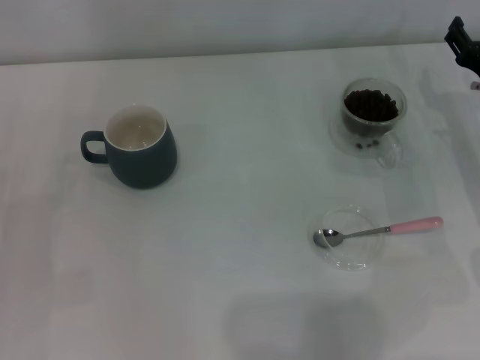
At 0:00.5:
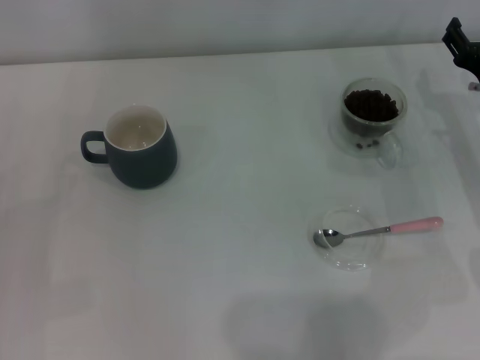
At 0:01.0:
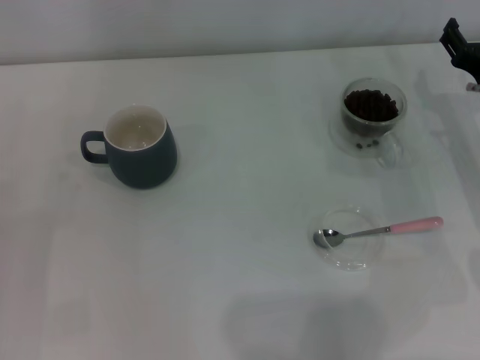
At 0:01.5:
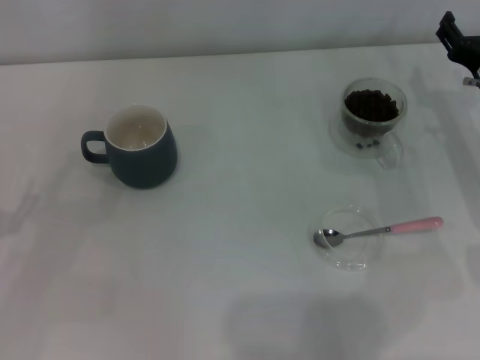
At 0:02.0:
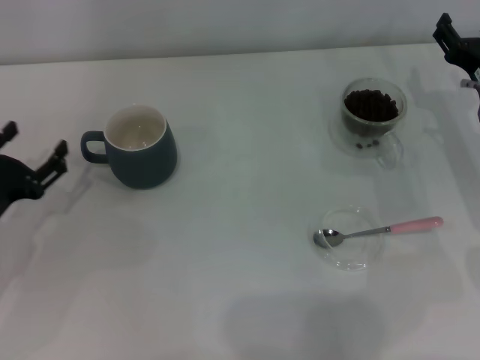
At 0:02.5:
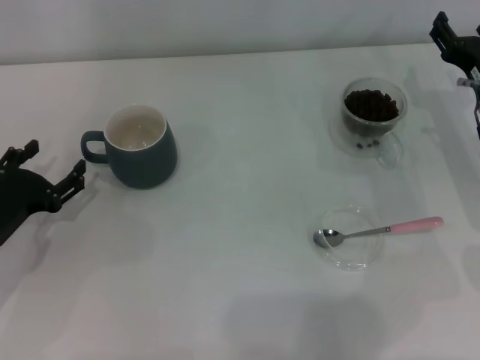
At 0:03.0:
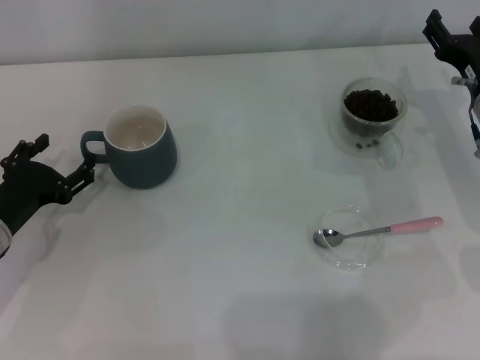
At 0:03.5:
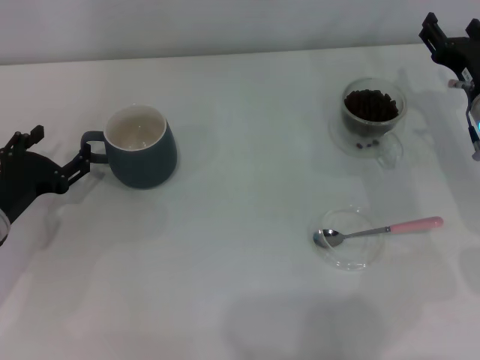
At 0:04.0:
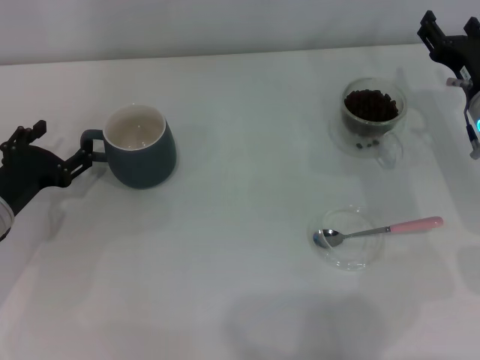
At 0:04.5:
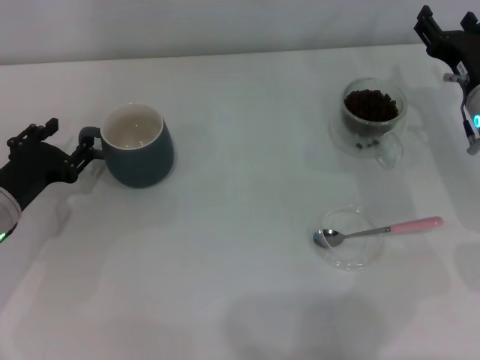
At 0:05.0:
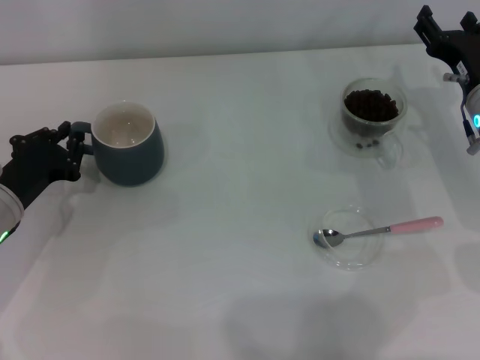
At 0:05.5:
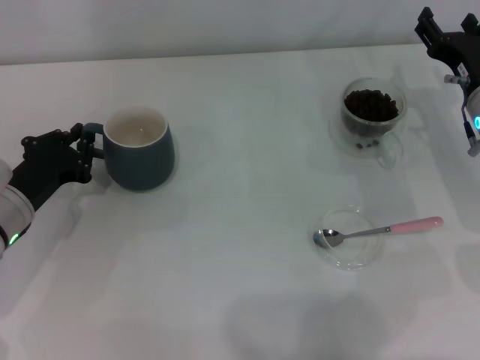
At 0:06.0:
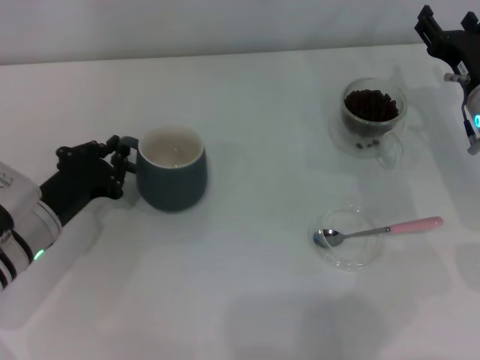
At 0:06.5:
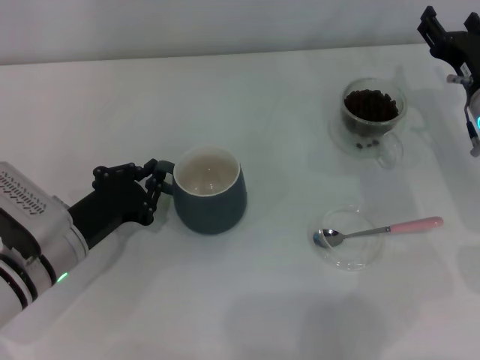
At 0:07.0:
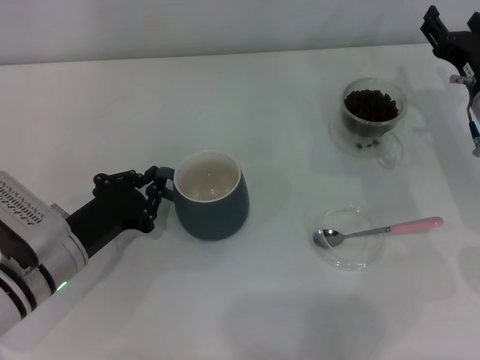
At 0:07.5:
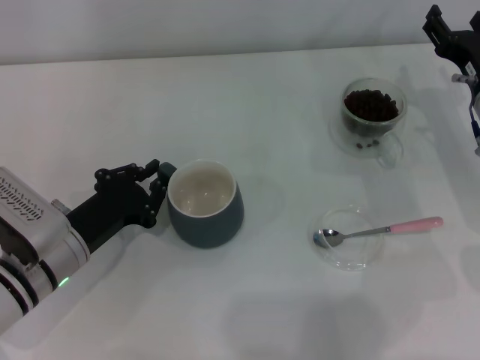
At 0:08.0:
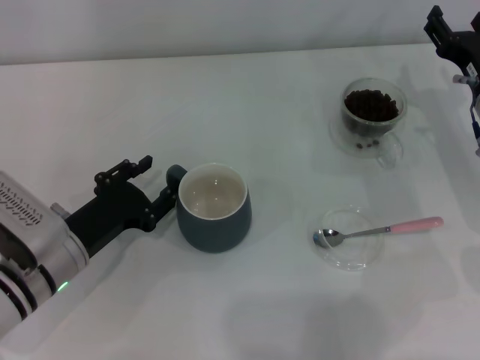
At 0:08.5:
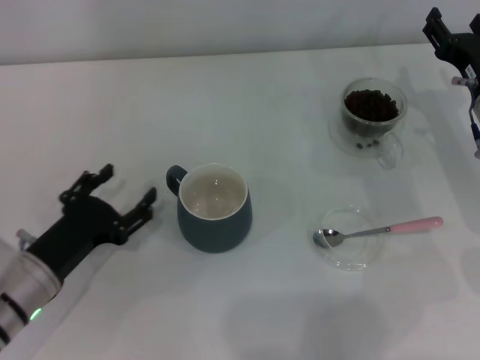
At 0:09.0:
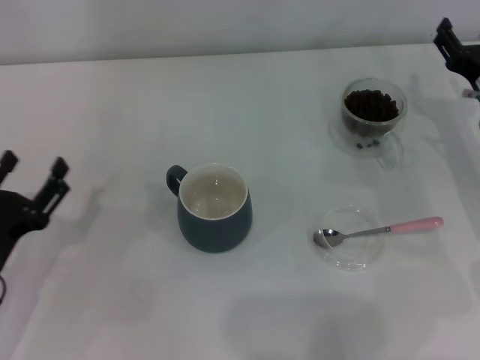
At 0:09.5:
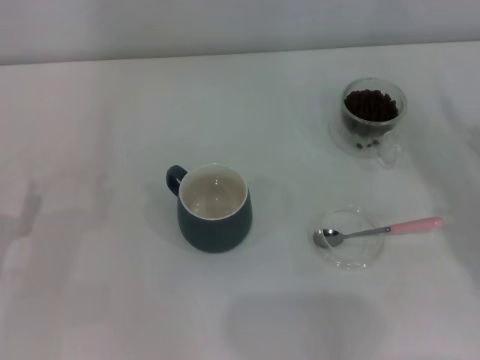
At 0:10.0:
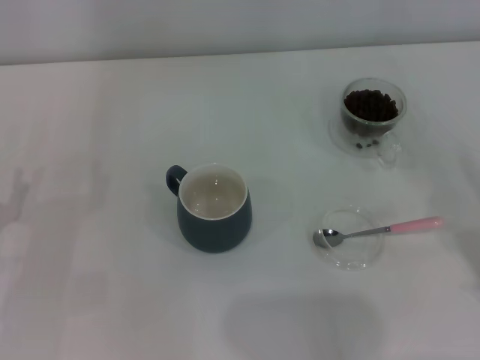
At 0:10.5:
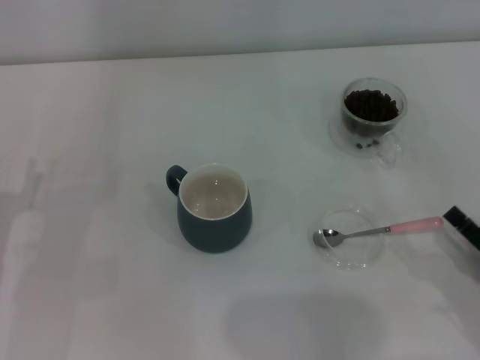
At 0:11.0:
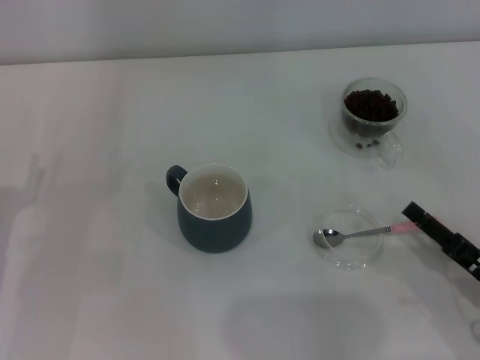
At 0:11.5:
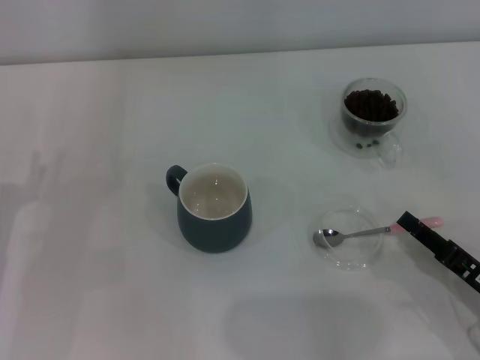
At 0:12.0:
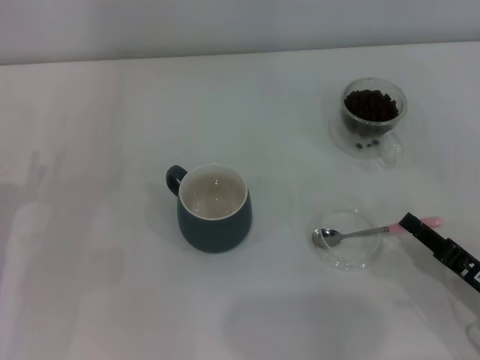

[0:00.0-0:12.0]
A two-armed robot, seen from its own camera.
Task of the whole recording: Use a pink spoon to take out the coffee beans from the glass and pour them into the gray cup.
Step, 0:00.0 to 0:08.5: Move the cup to the center of view with the left gripper.
0:00.0 to 0:02.0: The left gripper ends up about 5 cm from where it was.
0:02.0 to 0:04.0: The grippers make only small movements.
0:04.0 to 0:06.0: The left gripper closes up.
0:06.0 to 0:08.0: There are only small adjustments of the grippers.
0:08.0 to 0:10.0: The right gripper is displaced backward by about 20 cm. Meanwhile the left gripper moves to the left, approximately 10 cm, and opens up.
0:10.0 to 0:12.0: The right gripper is displaced to the left by about 5 cm, and closes up.

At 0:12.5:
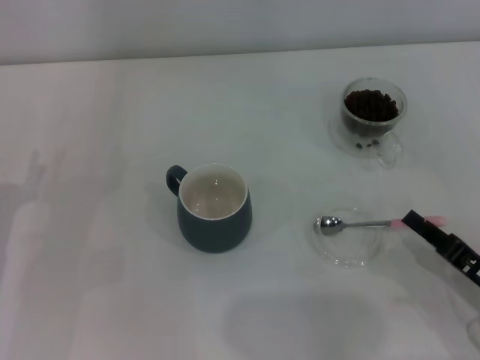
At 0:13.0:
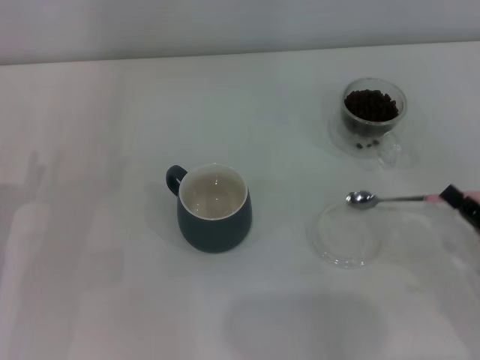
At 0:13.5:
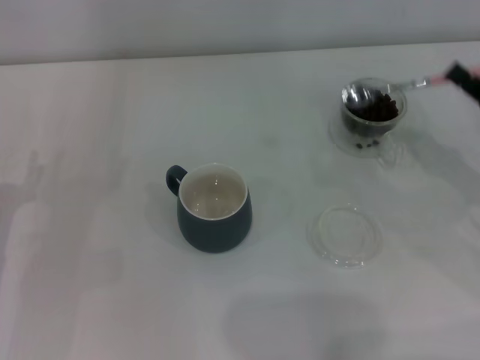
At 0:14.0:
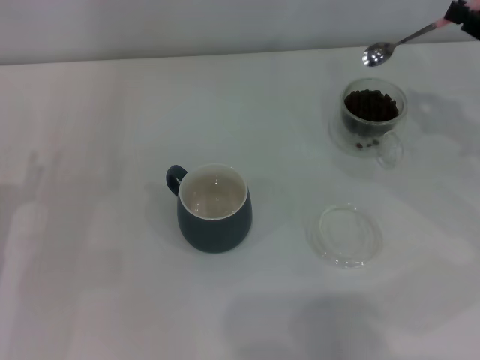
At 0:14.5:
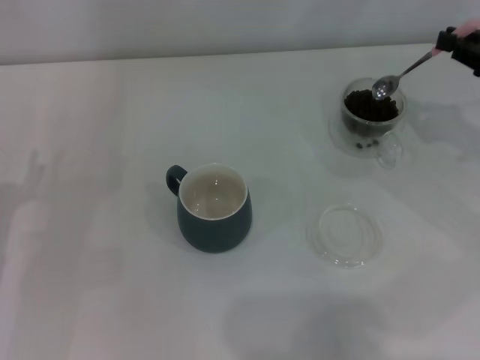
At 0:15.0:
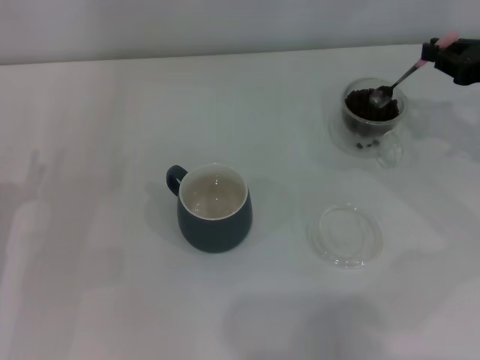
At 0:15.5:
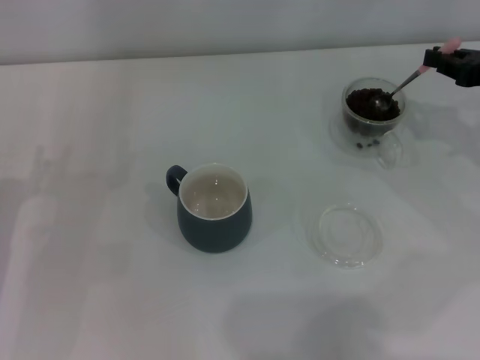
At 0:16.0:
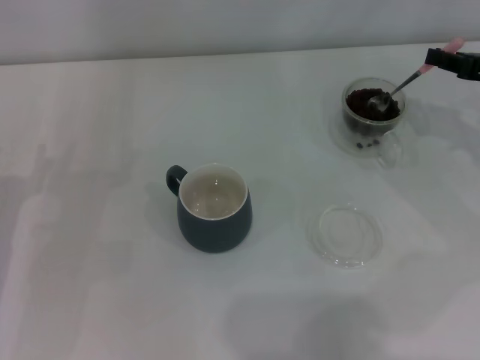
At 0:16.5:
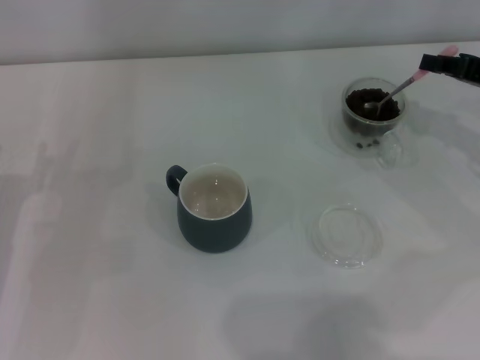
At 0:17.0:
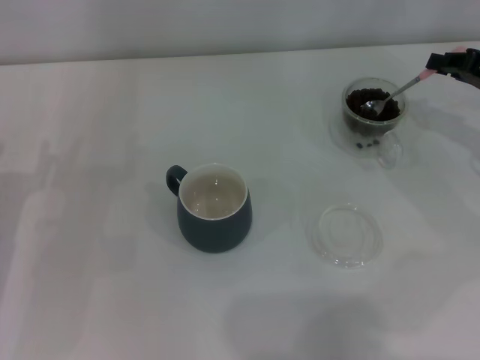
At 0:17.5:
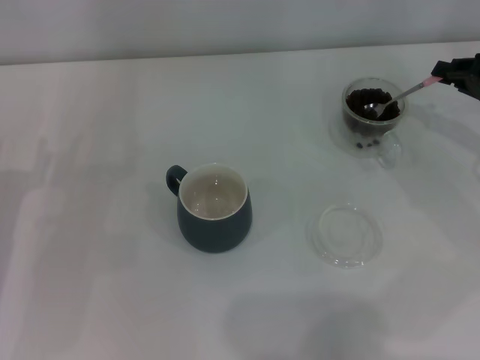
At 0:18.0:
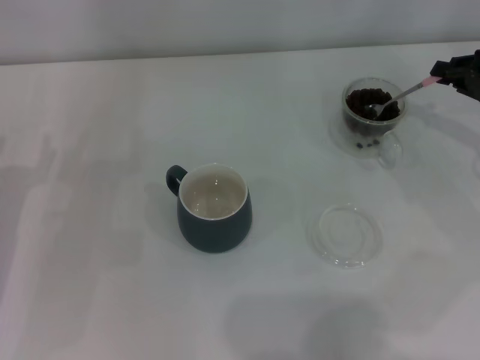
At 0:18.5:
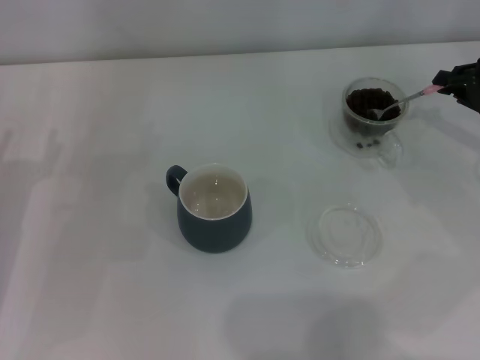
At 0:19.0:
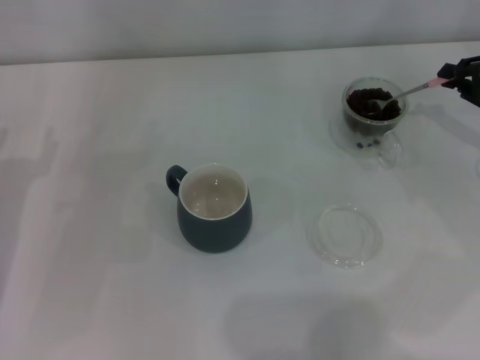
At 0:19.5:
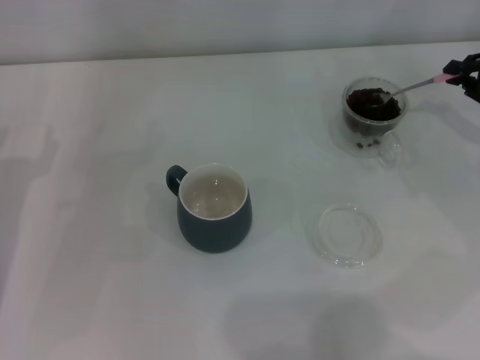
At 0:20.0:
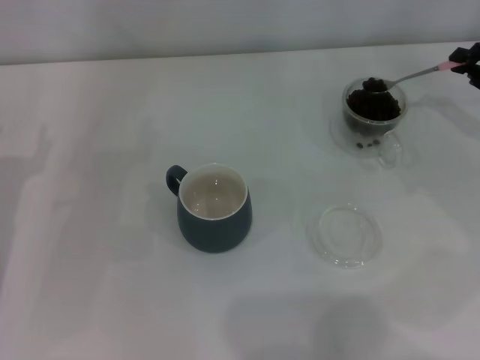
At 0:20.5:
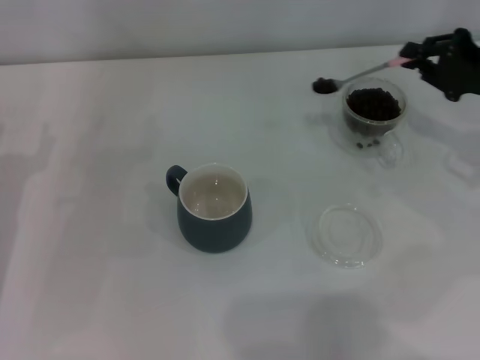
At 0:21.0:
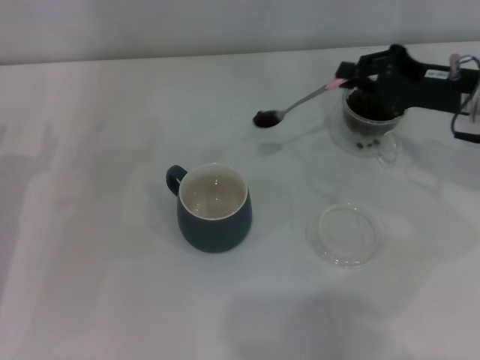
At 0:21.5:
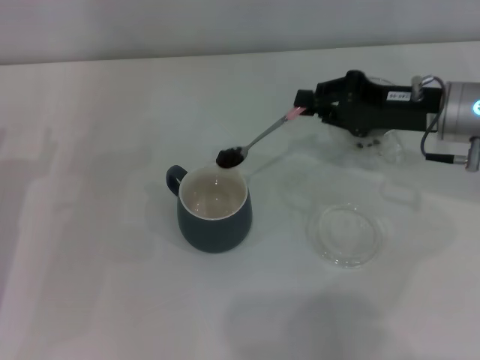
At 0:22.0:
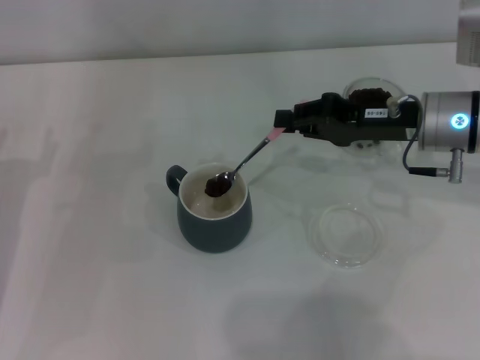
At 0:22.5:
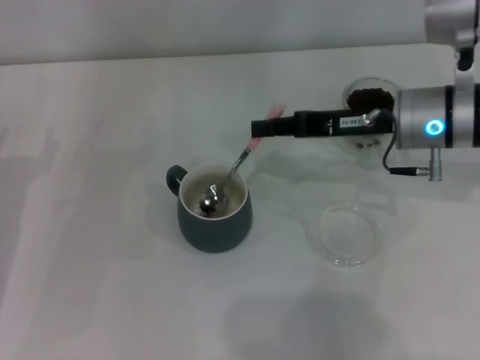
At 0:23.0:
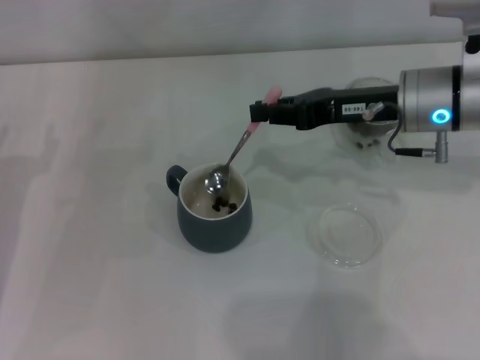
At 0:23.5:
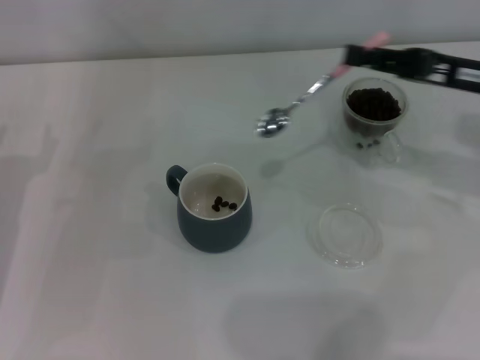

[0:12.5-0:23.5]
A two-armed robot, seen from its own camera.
Task of the whole recording: Use a pink spoon to take out the coffee beans from the glass and pour them into the gray cup.
Step, 0:13.5 to 0:23.0: Scoop a spoonful of beans into the cup with the right gripper.
0:12.5 to 0:14.5: The right gripper goes about 25 cm forward, upward and to the right.
0:14.5 to 0:16.0: There are only small adjustments of the grippers.
0:18.0 to 0:20.0: The grippers make only small movements.
0:20.0 to 0:21.5: The right gripper heads to the left, covering roughly 15 cm.
0:21.5 to 0:23.5: The right gripper moves about 5 cm.

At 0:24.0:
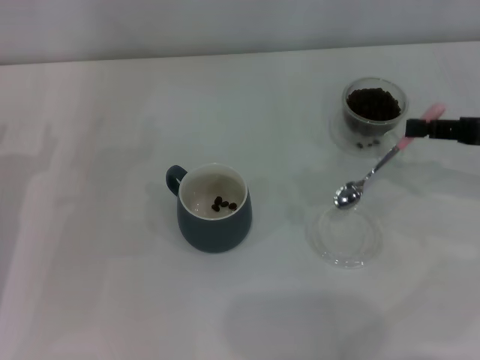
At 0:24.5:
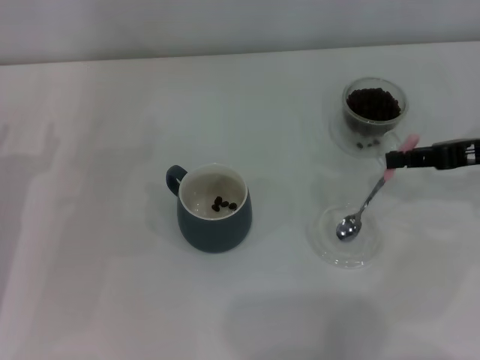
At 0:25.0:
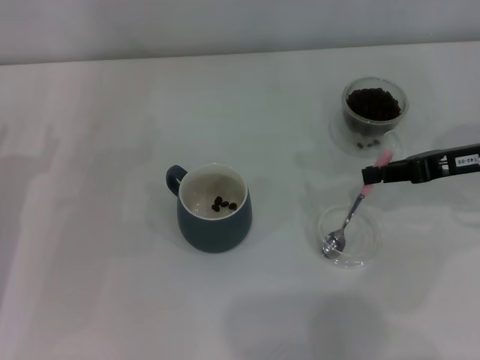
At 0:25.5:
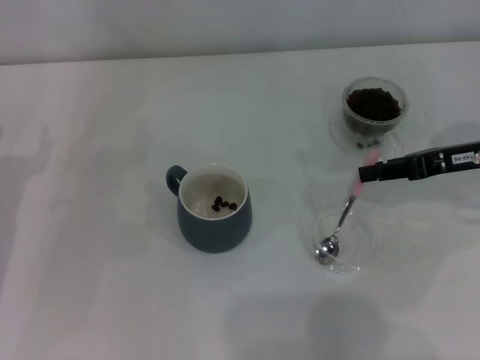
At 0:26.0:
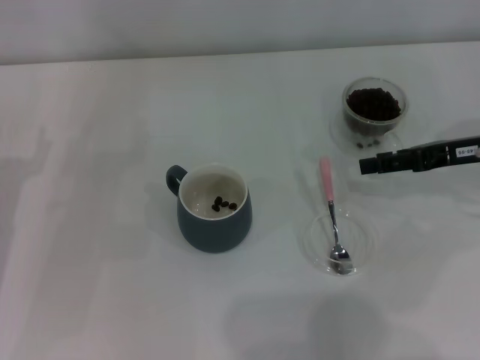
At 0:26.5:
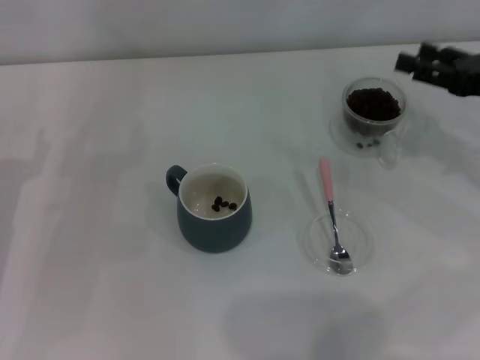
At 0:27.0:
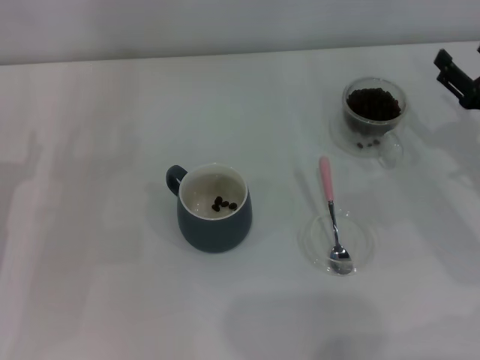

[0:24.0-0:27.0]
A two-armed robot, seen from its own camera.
Task of the whole recording: Use a pink spoon to take out the coffee beans from the glass and pour them into the gray cup.
Step, 0:24.0 to 0:25.5: Place the spoon back in its original place with the right gripper.
0:24.0 to 0:25.5: The right gripper moves approximately 5 cm.
0:25.5 to 0:27.0: The right gripper heads downward, covering approximately 5 cm, and opens.
